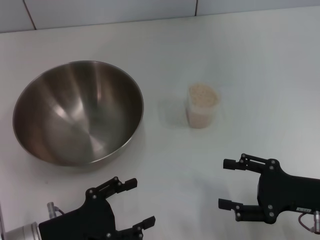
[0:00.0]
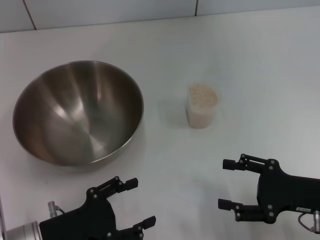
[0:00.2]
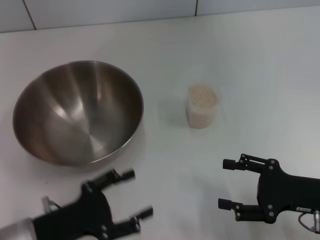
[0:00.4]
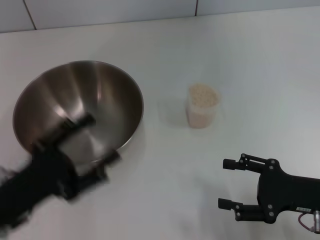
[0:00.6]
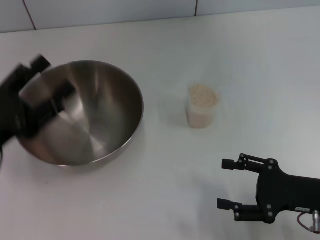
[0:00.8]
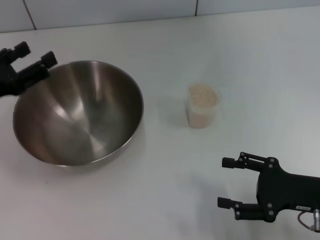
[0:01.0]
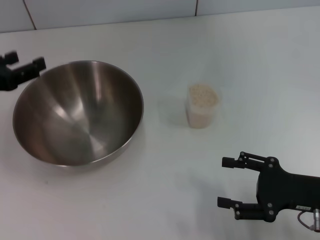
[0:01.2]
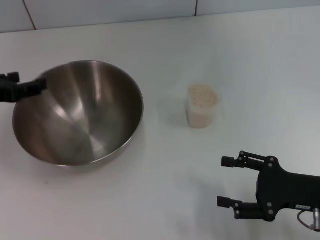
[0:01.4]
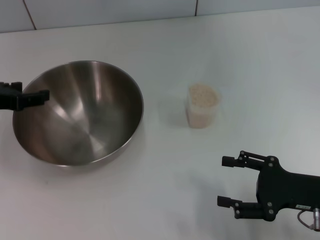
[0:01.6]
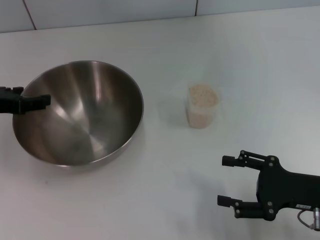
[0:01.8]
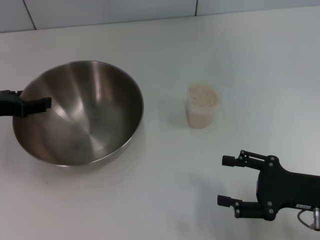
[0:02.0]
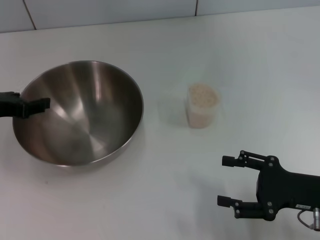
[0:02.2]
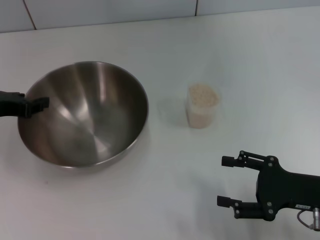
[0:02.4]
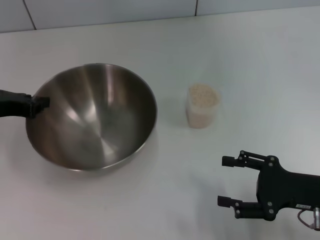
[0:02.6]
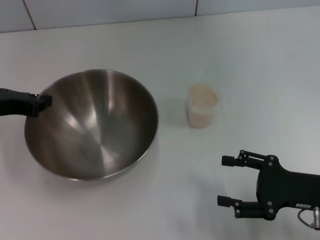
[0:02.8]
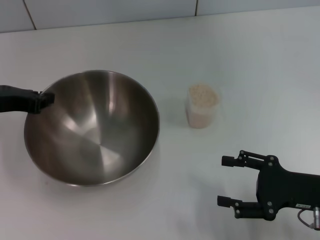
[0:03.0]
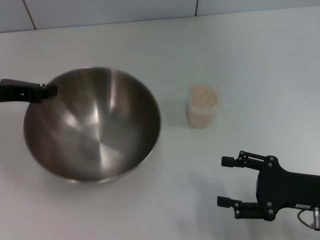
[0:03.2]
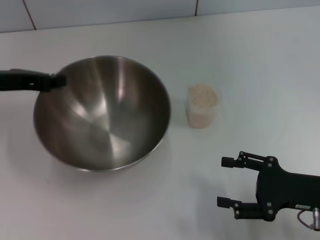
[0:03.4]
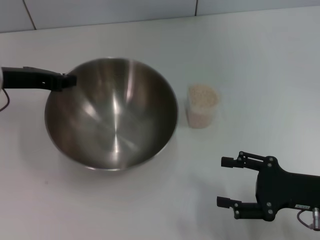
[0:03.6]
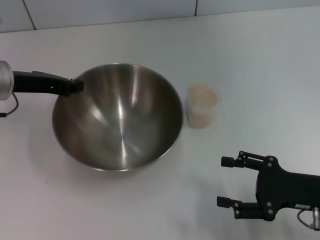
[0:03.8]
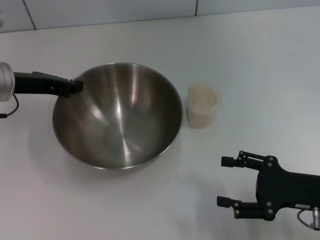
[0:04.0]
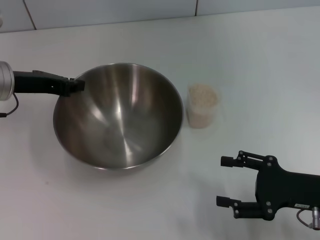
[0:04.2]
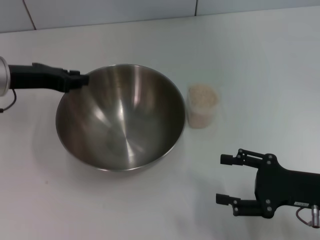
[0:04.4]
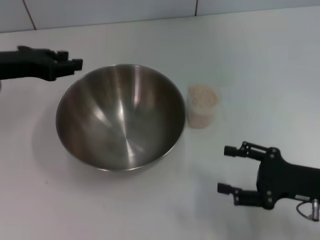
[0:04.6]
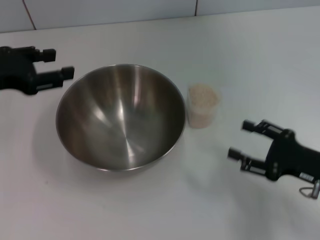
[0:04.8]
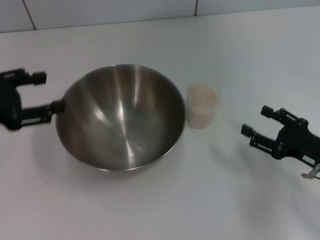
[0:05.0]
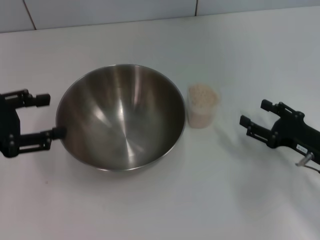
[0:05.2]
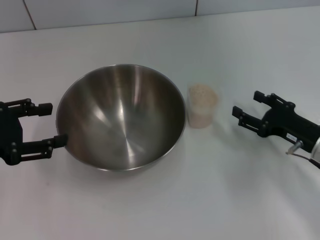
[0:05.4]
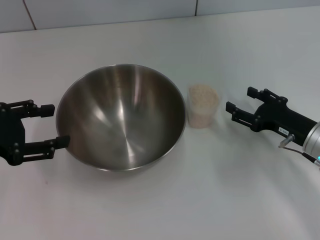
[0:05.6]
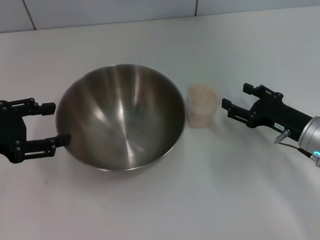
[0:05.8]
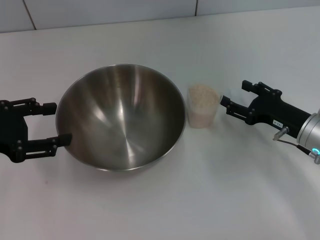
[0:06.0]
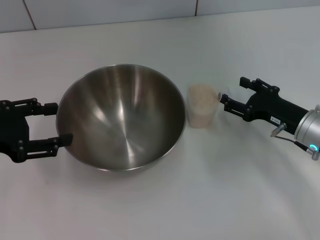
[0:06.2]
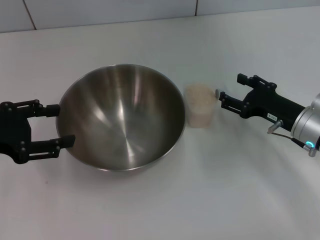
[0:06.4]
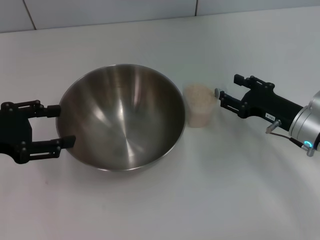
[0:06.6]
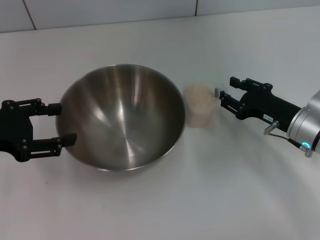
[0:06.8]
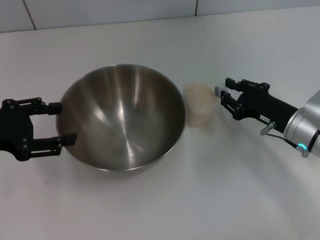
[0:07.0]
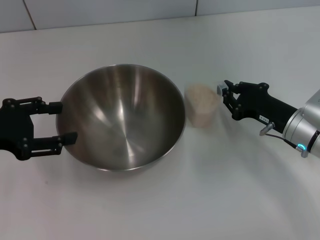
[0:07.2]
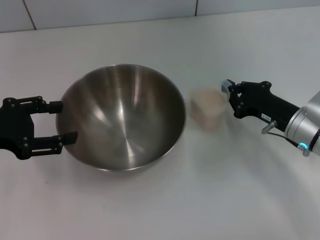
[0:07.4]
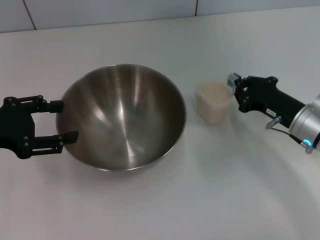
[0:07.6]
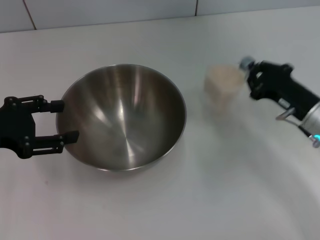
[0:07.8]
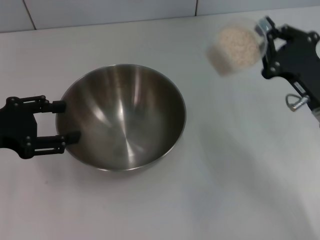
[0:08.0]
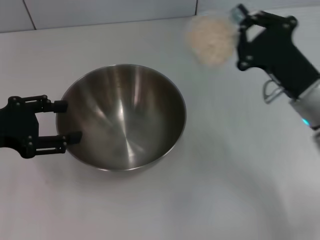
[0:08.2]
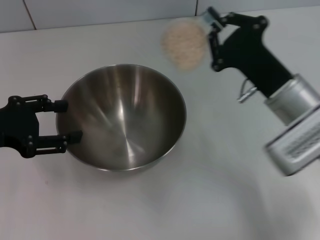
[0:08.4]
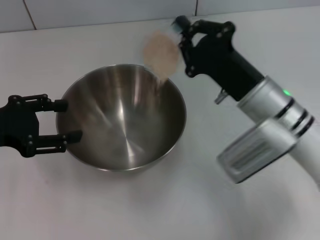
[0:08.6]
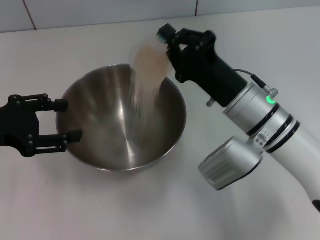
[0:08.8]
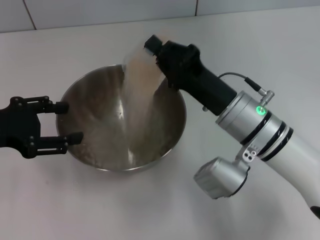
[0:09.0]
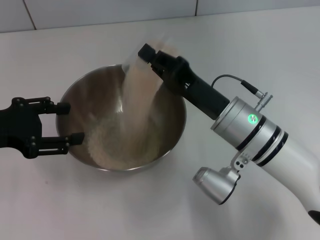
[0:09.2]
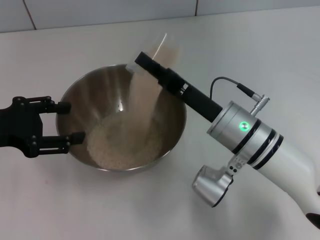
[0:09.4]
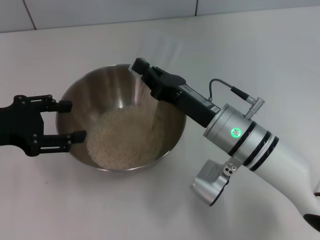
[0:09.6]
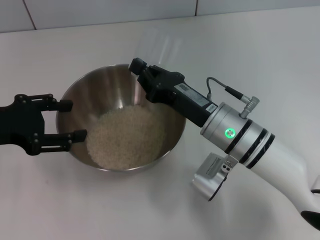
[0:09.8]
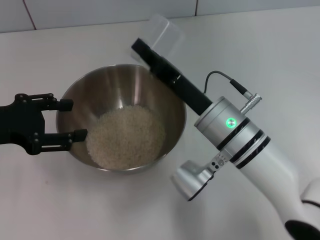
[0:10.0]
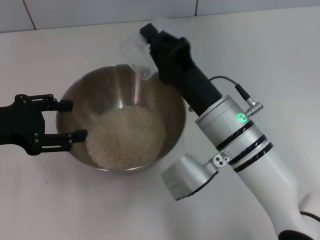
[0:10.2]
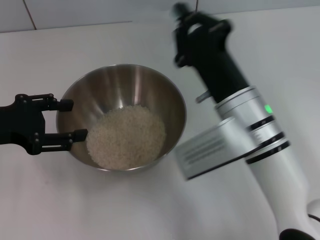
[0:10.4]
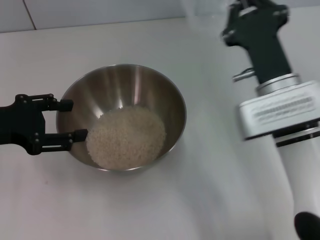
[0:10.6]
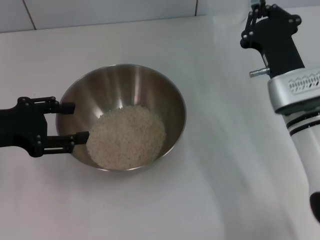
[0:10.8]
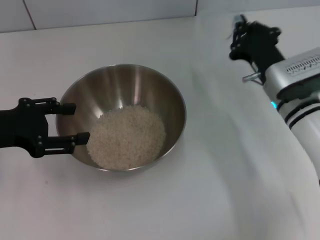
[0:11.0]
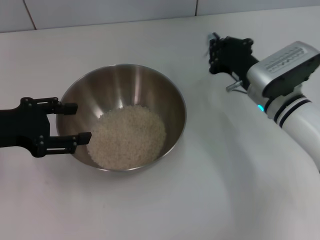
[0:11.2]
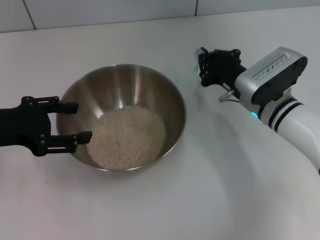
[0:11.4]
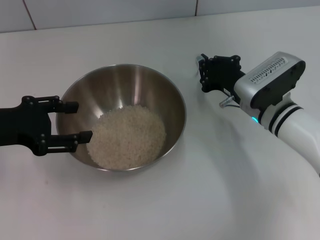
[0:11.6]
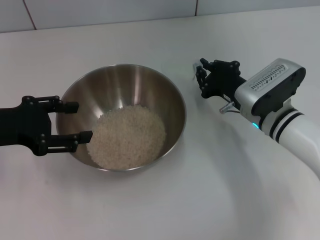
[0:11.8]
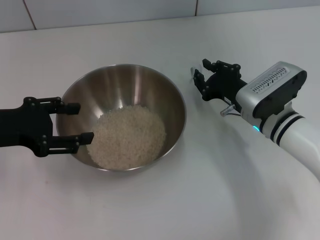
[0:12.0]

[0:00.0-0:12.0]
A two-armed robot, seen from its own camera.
Task of the whole recording: Place the bowl in the middle of the table with one hand and pour the rice from the grain cup into it with the other hand.
Step, 0:00.0 to 0:03.4: Pick up the bowl with the left gripper.
Step, 0:03.6 to 0:04.6: Place the bowl in the center of view with the left gripper.
Step, 0:04.8 to 0:07.6: Pick up the cup with rice in it with the right gripper.
Step, 0:08.0 to 0:10.2: Pour the rice from the cup into the bowl with the right gripper.
0:00.0 to 0:01.6: The left gripper heads forward, upward and to the left, covering roughly 20 cm.
0:01.6 to 0:03.0: The left gripper closes.
0:03.0 to 0:04.4: The left gripper moves about 5 cm.
0:04.4 to 0:06.0: The left gripper shifts approximately 10 cm backward and to the left, and opens up; the right gripper is displaced forward by approximately 10 cm.
0:06.0 to 0:07.6: The right gripper closes its fingers.
0:07.6 to 0:09.0: The right gripper goes approximately 15 cm to the left.
0:10.4 to 0:12.0: The right gripper heads to the right, downward and forward, covering some 15 cm.

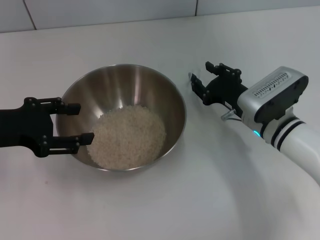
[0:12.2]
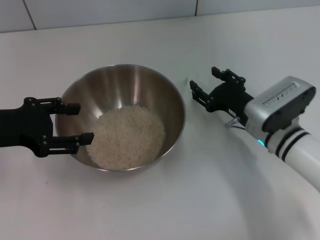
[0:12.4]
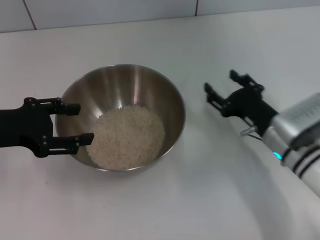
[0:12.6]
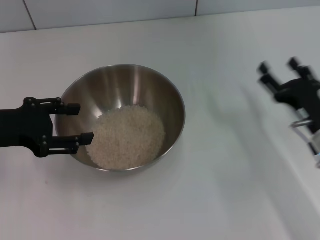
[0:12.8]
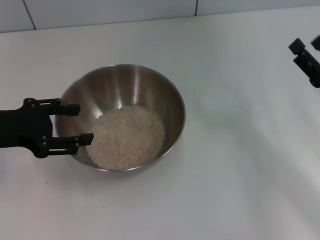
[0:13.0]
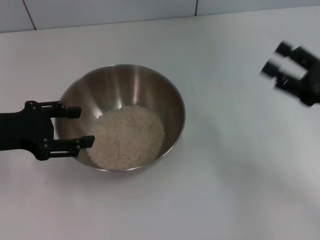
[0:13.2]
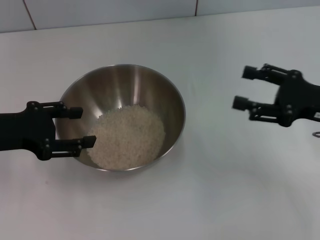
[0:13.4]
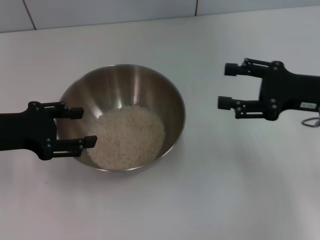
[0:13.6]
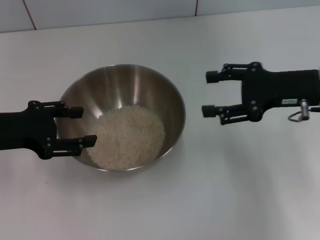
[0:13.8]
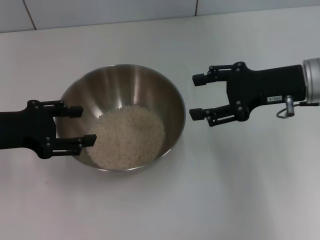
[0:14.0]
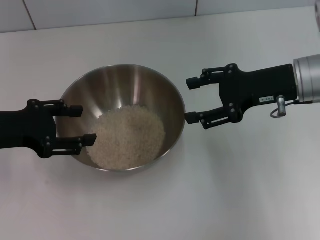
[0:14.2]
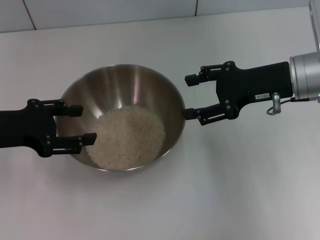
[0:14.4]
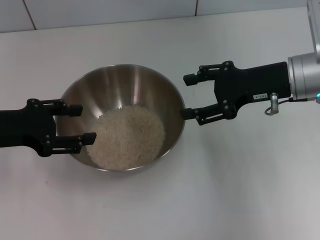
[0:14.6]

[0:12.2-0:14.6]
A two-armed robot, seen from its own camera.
Task of the whole recording: Place the bowl in the middle of the table with one hand and pour the rice from the grain cup into it with the other hand.
0:12.2 to 0:13.4: The right gripper shifts roughly 15 cm to the right, upward and backward, and opens up.
0:13.4 to 0:14.6: The right gripper travels to the left and forward by about 10 cm.

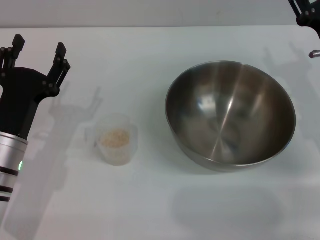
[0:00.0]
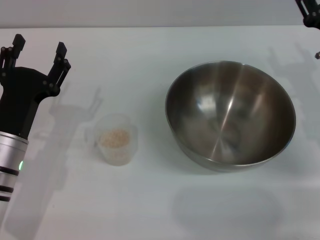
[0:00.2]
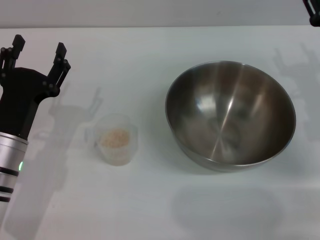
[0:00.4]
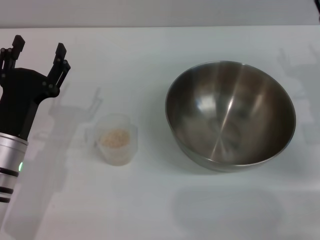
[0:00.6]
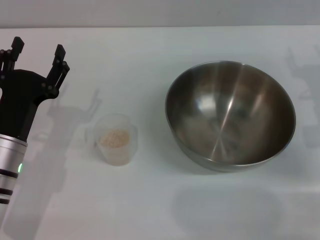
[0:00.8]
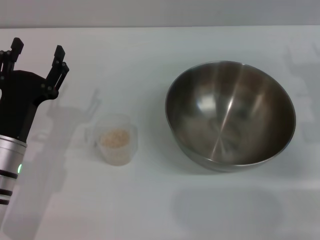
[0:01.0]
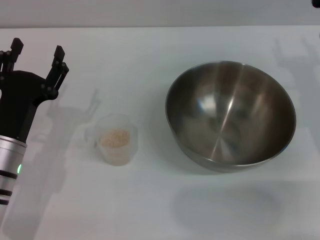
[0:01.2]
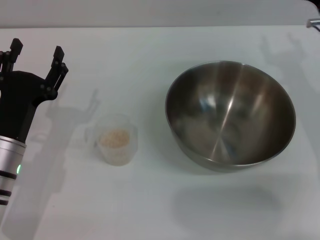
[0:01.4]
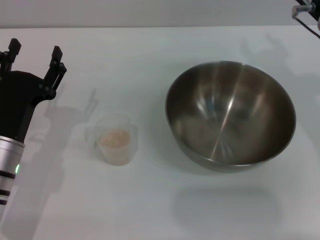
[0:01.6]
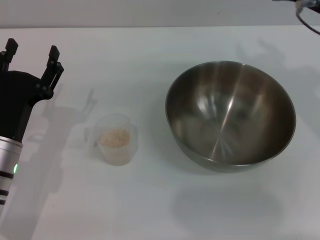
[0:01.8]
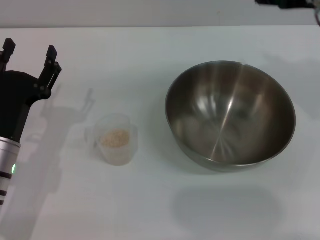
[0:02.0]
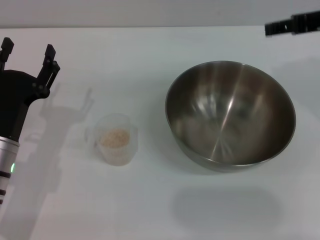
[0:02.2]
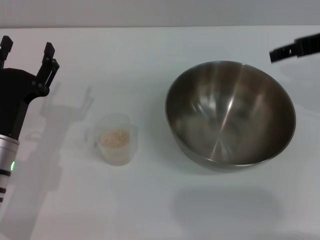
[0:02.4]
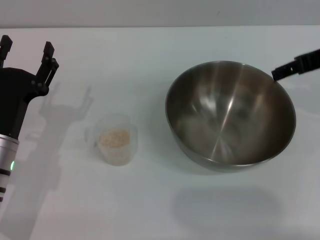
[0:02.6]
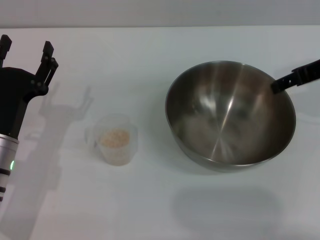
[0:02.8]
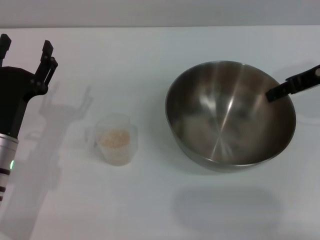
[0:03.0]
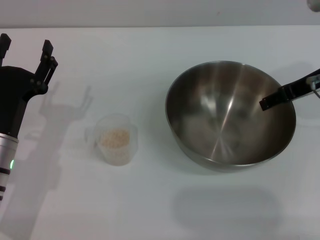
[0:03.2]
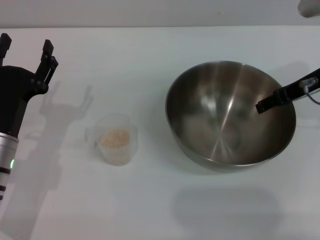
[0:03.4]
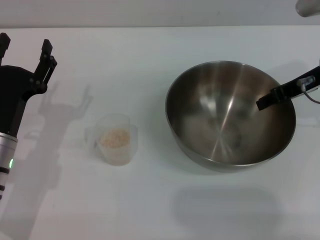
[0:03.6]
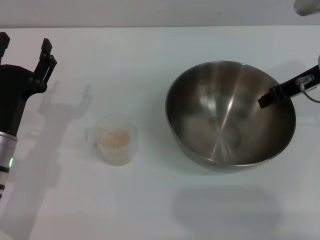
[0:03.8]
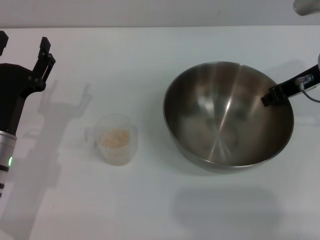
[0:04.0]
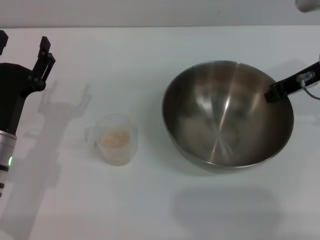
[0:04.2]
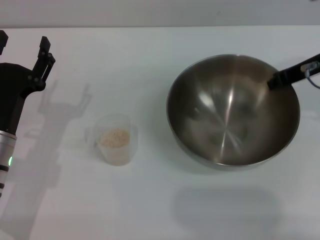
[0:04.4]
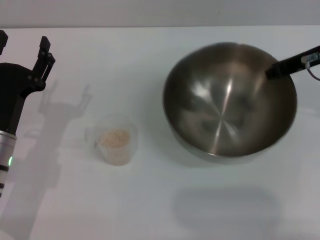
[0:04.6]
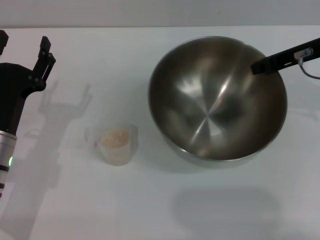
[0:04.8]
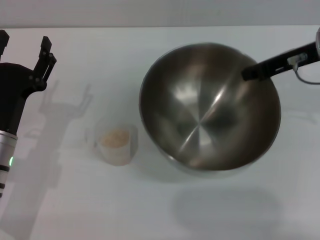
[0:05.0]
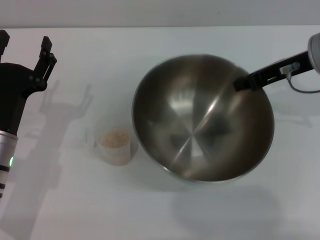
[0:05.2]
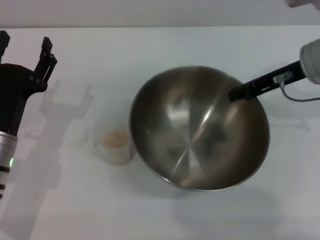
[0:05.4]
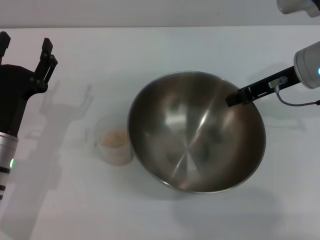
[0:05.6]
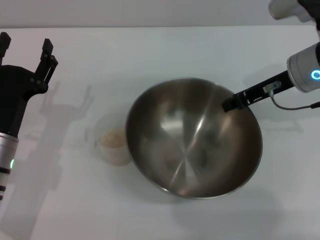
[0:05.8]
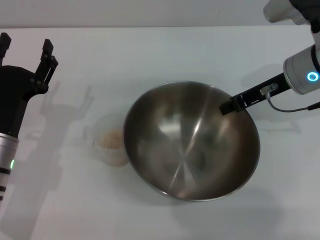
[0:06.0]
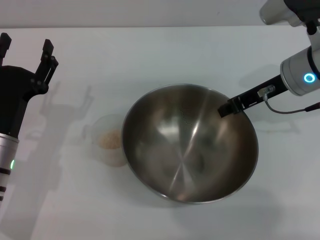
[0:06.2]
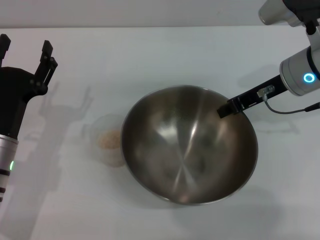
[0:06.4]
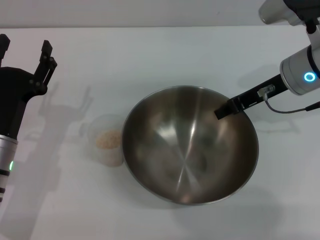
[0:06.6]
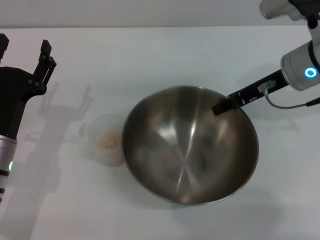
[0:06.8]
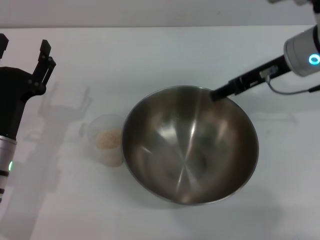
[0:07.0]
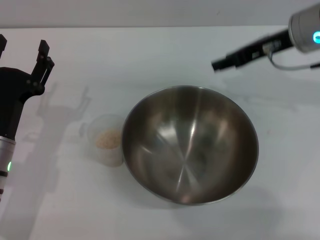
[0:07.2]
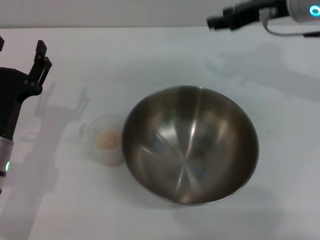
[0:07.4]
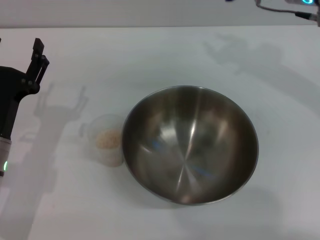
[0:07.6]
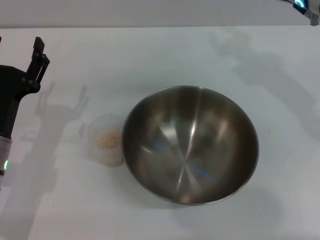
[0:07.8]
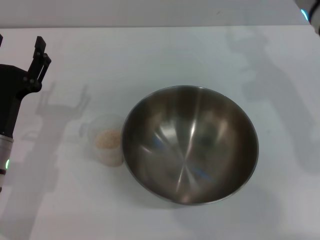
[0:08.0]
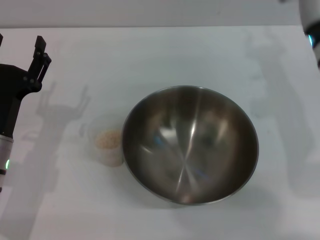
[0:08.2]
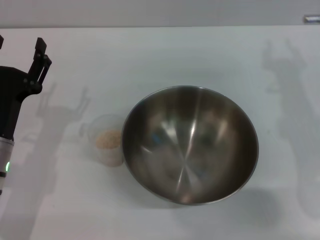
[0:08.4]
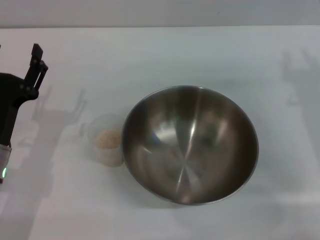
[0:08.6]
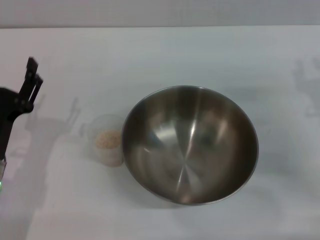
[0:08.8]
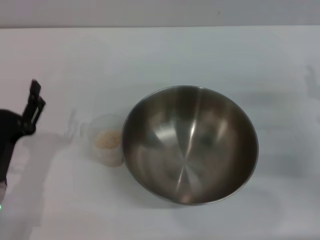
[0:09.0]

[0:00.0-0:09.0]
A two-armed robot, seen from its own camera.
Task of the whole recording: Place the bowl in the middle of the table with one hand and pour the rice from the grain cup into it with the other hand.
Step, 0:00.0 to 0:04.6: Pick up the bowl with the right gripper.
Step, 0:05.0 to 0:07.0: Place the bowl in the center of view with the right gripper.
0:00.0 to 0:01.6: The right gripper travels upward by approximately 10 cm.
0:03.0 to 0:04.4: The right gripper closes.
0:04.4 to 0:06.0: The right gripper moves roughly 5 cm.
0:06.0 to 0:07.6: The right gripper shifts about 5 cm upward, and opens up.
0:07.6 to 0:09.0: The left gripper goes roughly 5 cm backward; the right gripper shifts about 25 cm downward, backward and to the right.
